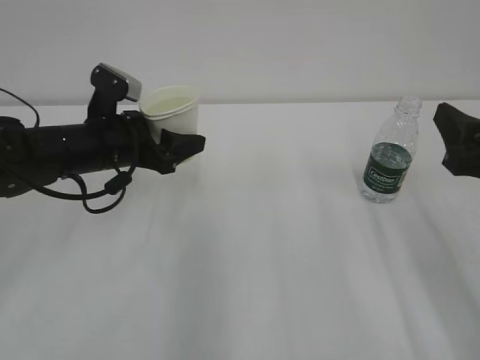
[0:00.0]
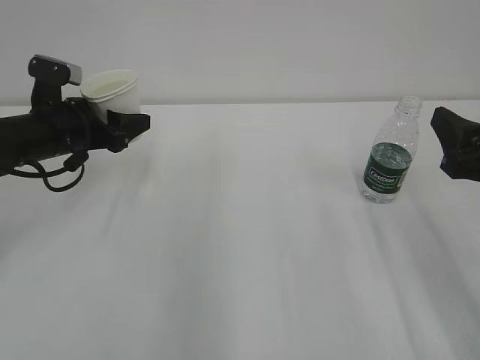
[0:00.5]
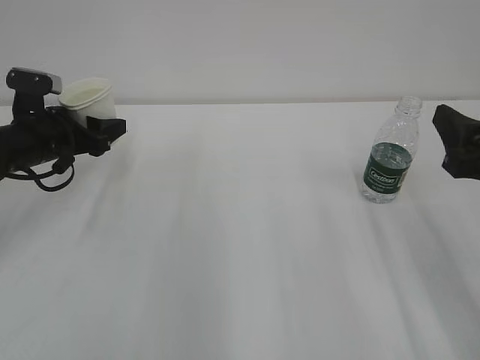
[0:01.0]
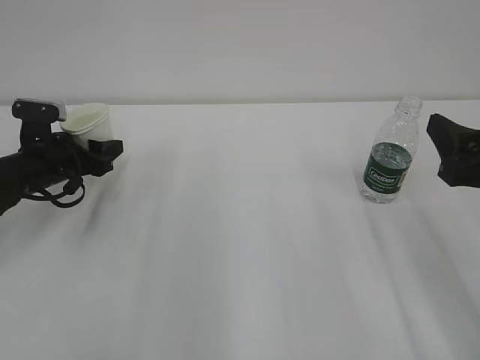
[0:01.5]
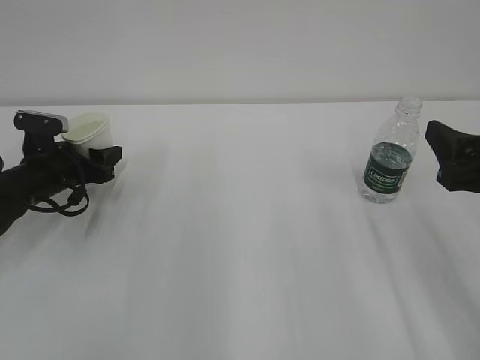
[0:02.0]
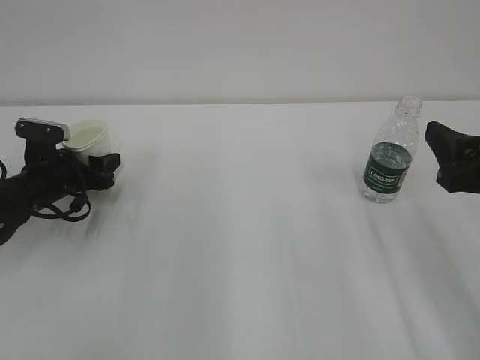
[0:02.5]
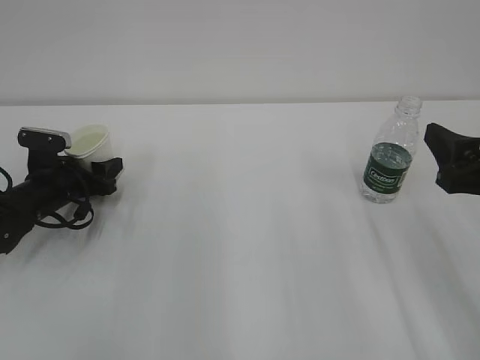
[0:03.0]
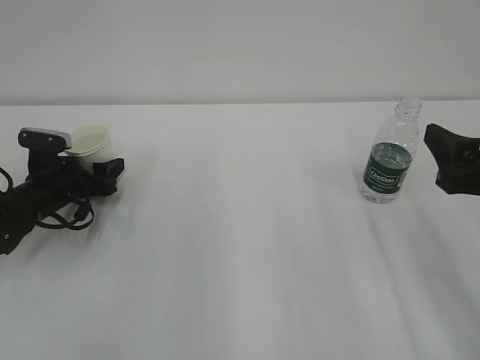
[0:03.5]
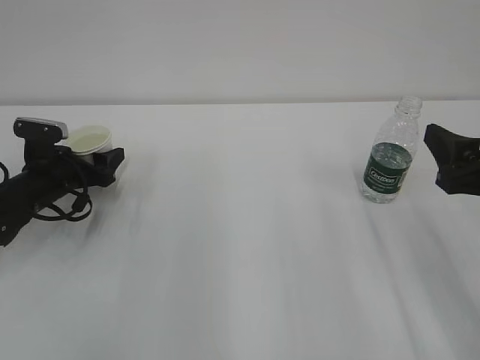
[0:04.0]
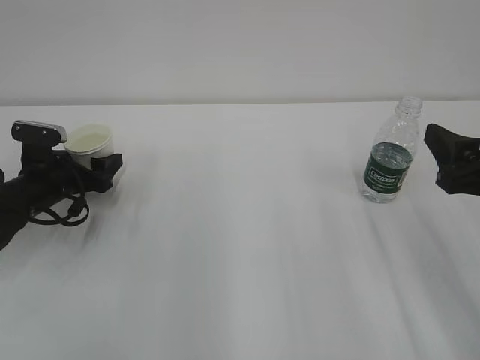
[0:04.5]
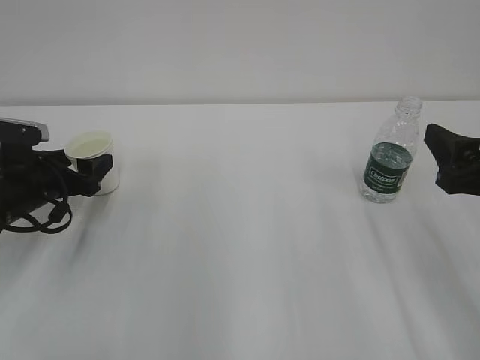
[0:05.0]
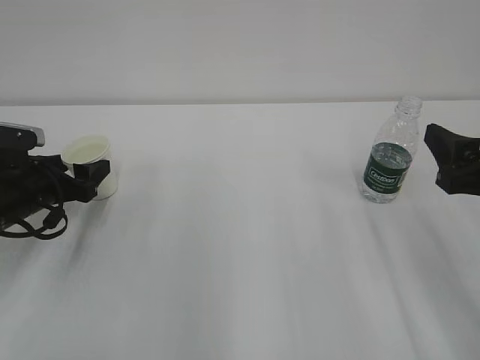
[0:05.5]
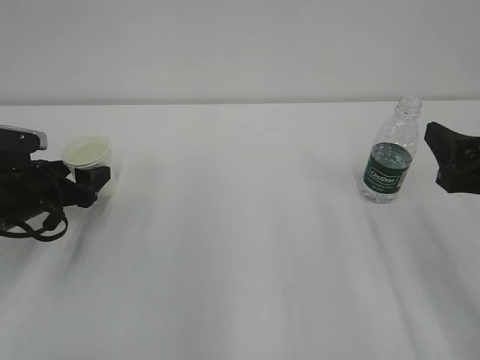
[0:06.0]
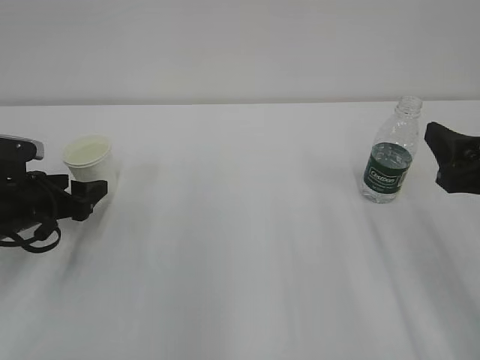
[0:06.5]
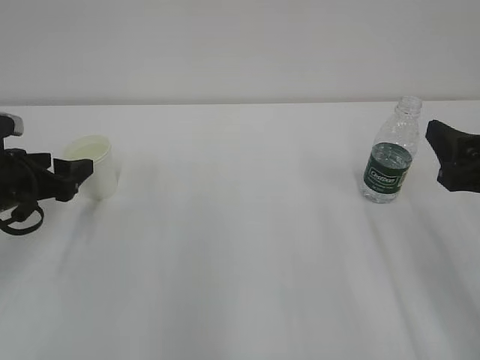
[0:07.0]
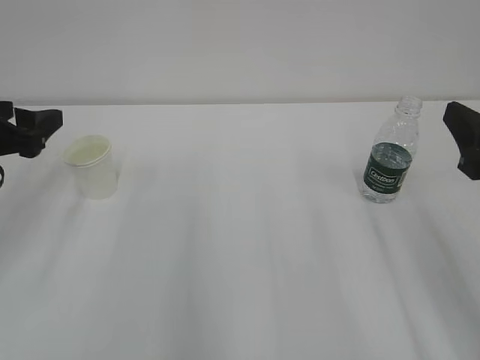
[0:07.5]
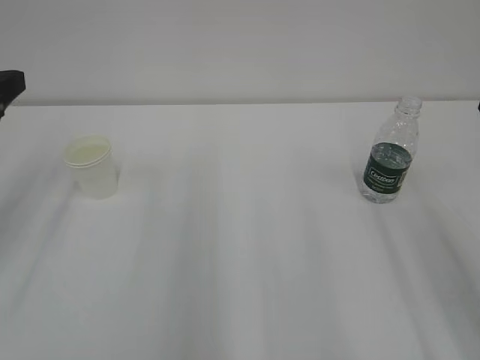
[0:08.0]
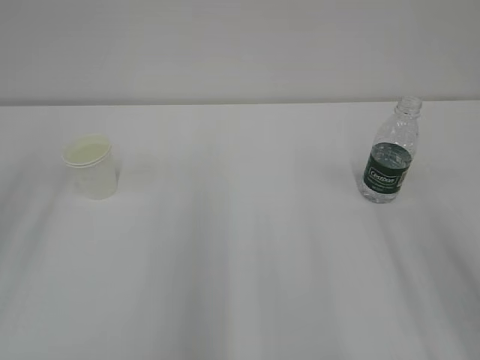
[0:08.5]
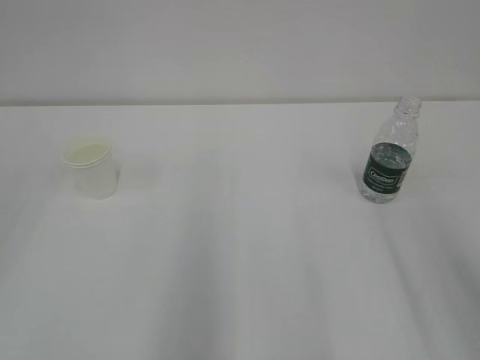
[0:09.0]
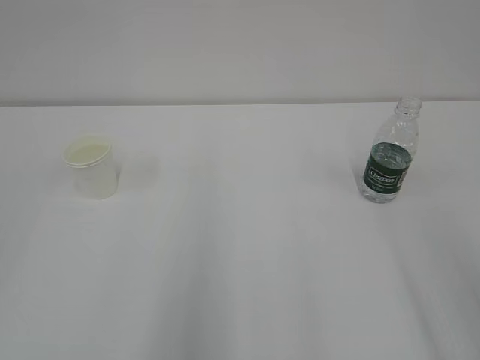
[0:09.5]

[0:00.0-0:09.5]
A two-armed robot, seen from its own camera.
0:00.0 to 0:02.0: The left gripper moves to the left and downward, roughly 15 cm.
0:02.0 to 0:04.0: The left gripper opens up.
0:04.0 to 0:05.5: The left gripper shifts approximately 5 cm backward.
0:05.5 to 0:07.5: The left gripper goes some 10 cm upward.
0:07.5 to 0:09.5: The grippers both shift backward and upward by some 20 cm. The left gripper closes.

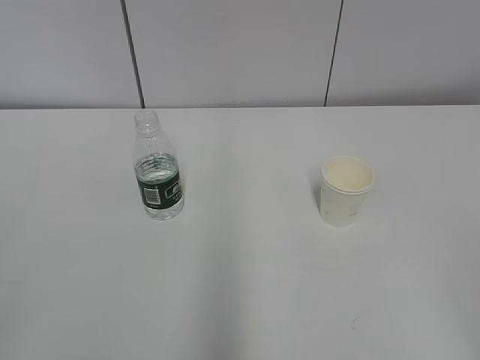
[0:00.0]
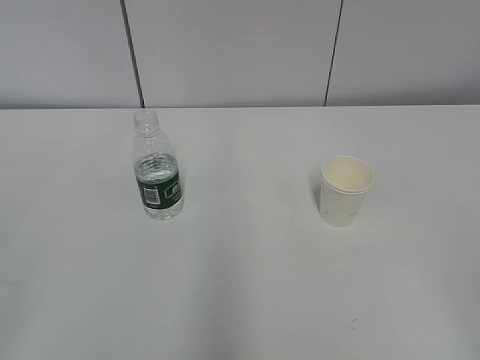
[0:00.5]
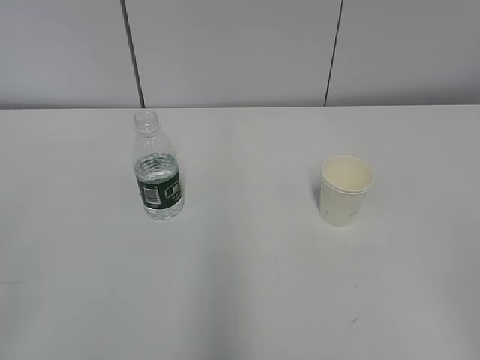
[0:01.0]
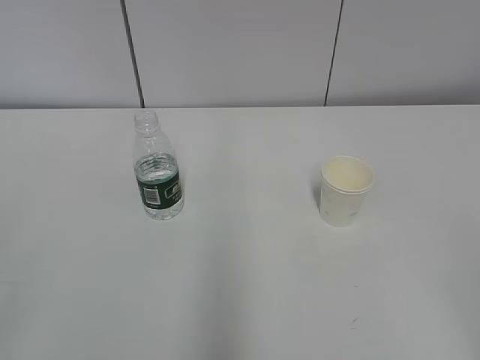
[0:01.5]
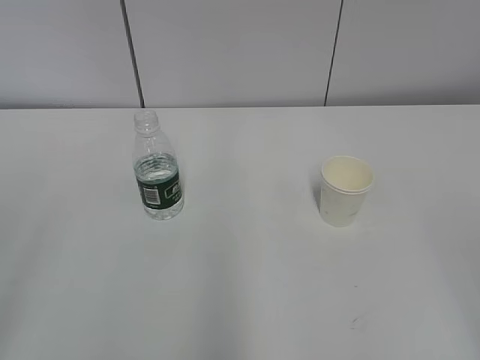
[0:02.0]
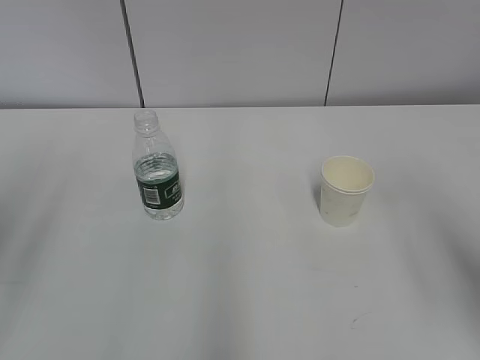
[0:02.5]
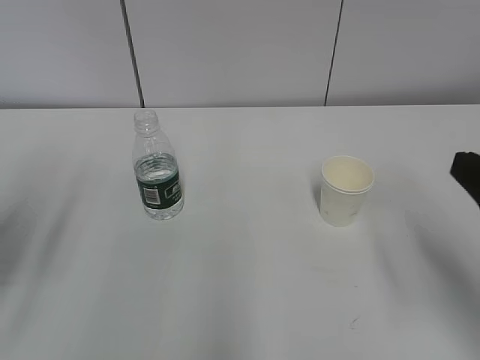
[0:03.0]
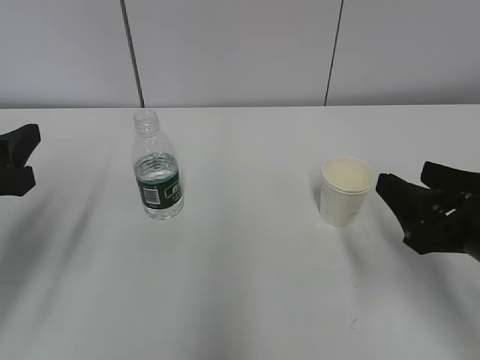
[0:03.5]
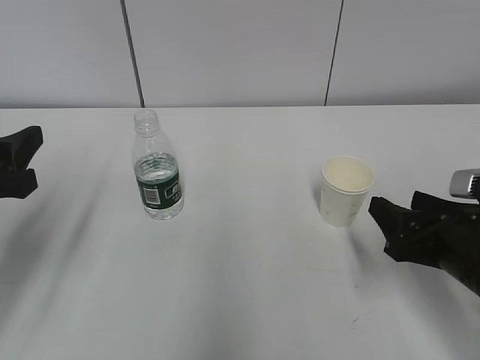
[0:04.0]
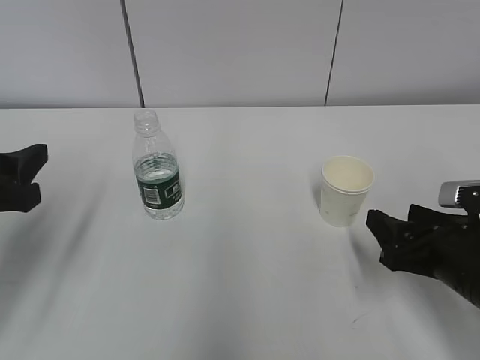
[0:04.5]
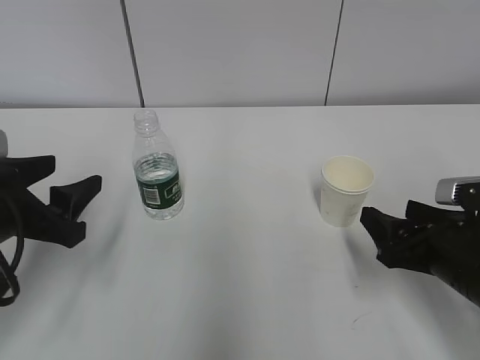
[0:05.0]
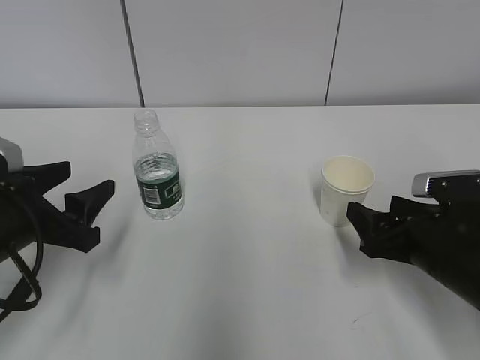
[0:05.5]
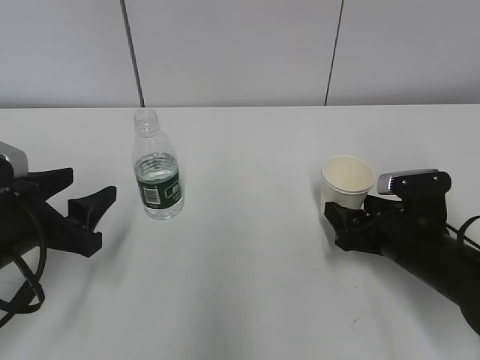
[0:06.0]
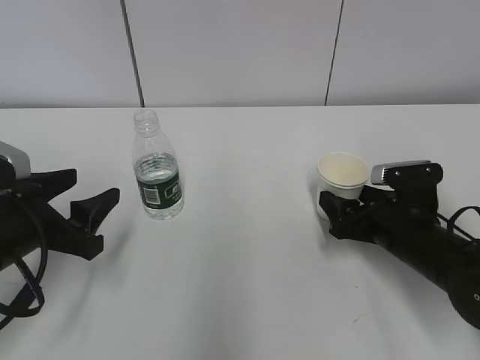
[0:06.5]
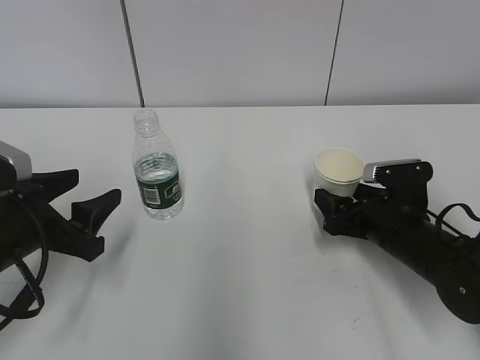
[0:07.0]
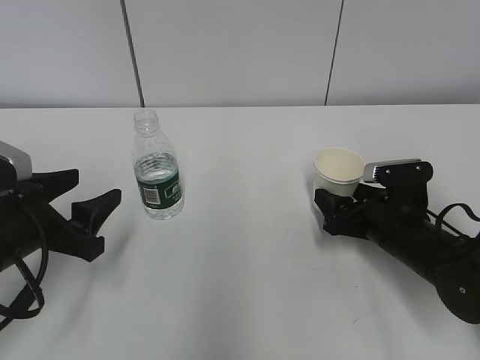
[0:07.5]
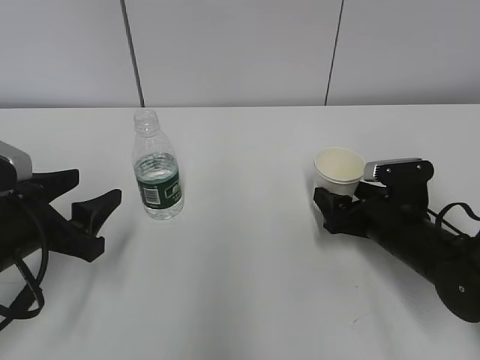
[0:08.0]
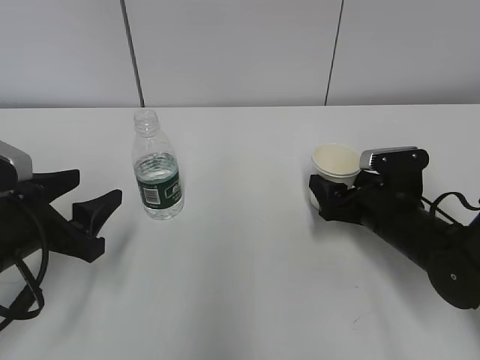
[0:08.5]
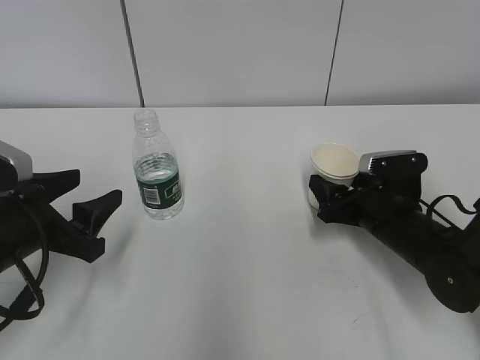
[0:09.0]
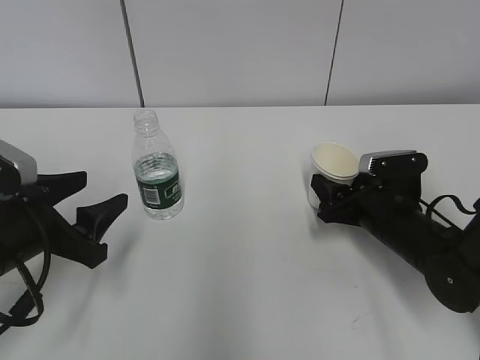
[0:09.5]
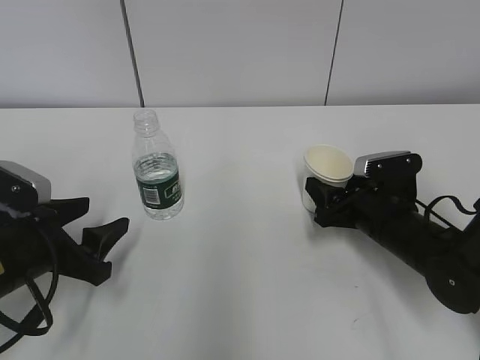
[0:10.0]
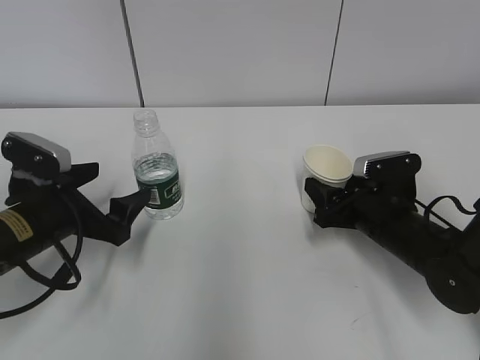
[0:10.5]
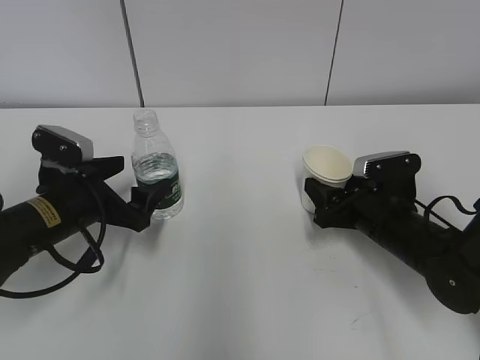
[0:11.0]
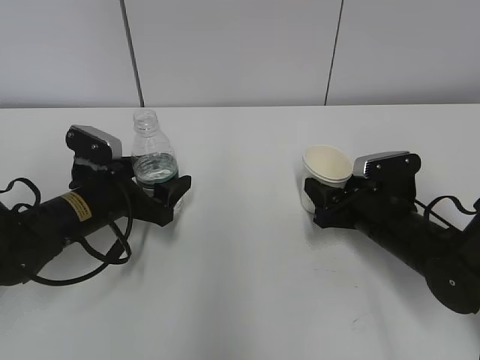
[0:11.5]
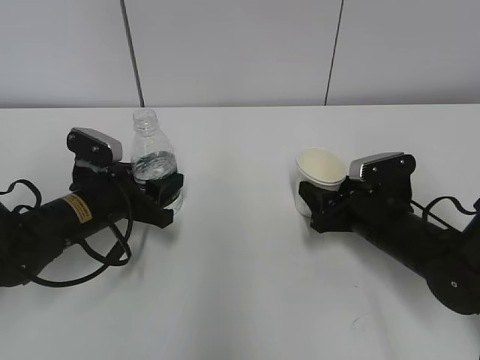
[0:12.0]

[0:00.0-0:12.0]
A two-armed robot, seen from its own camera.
Step, 0:00.0 to 0:10.0: Grab the water bottle with the left hand.
0:02.0 to 0:04.0: The two grippers go approximately 25 cm forward and downward.
0:04.0 to 0:06.0: The left gripper moves downward, about 10 cm. The right gripper travels forward and downward by about 10 cm, and opens its fingers.
0:06.0 to 0:08.0: There are only small adjustments of the grippers.
0:08.0 to 0:10.0: The right gripper closes.
0:10.0 to 0:12.0: The left gripper goes approximately 10 cm forward, and opens, then closes once more.

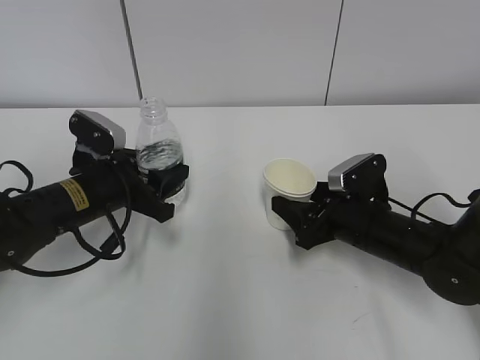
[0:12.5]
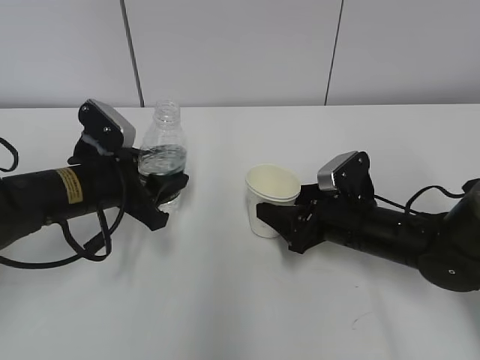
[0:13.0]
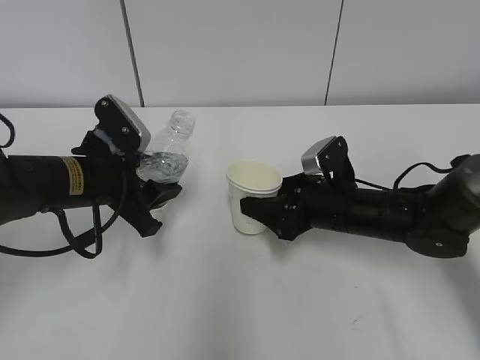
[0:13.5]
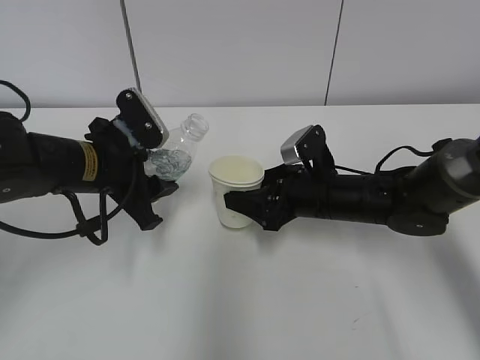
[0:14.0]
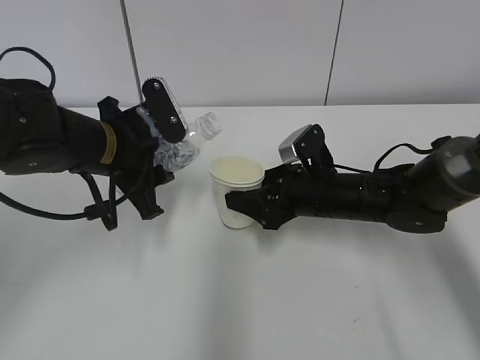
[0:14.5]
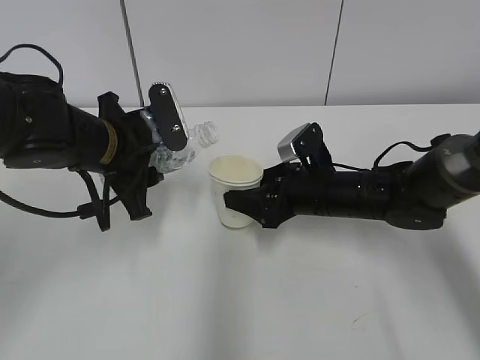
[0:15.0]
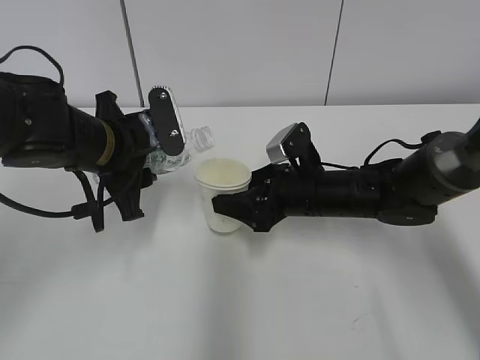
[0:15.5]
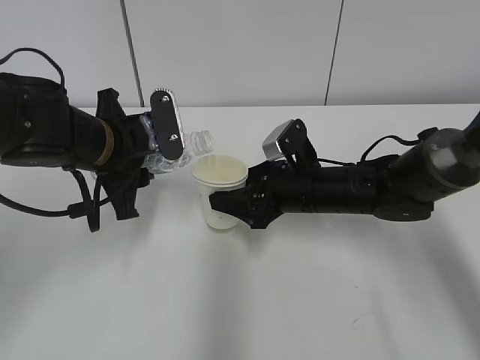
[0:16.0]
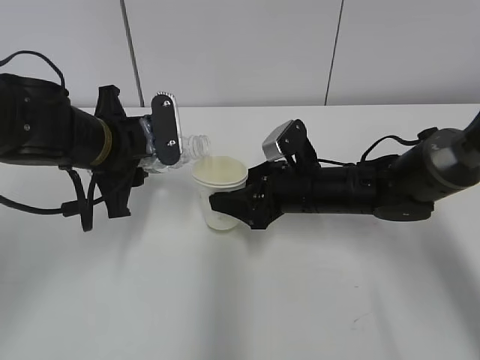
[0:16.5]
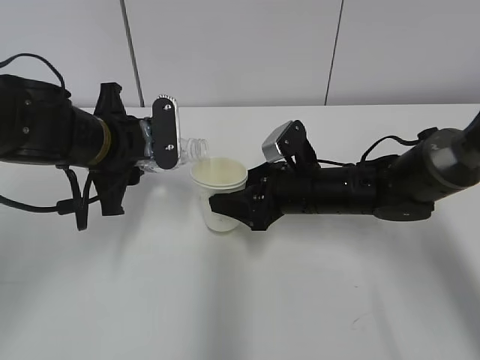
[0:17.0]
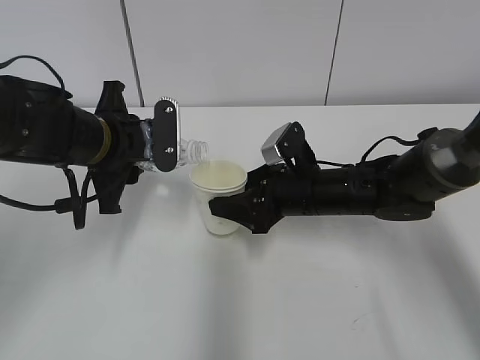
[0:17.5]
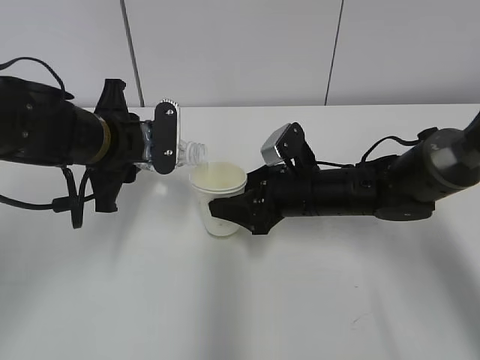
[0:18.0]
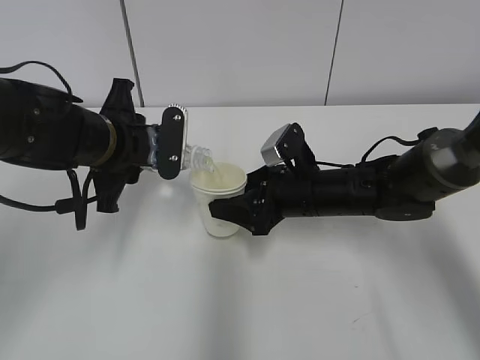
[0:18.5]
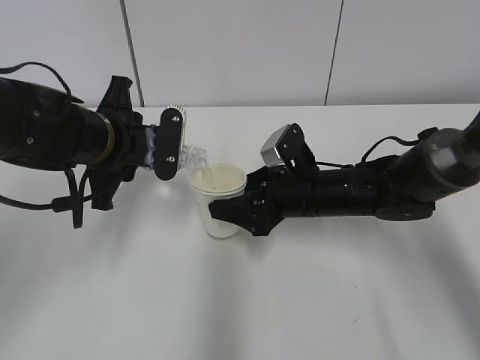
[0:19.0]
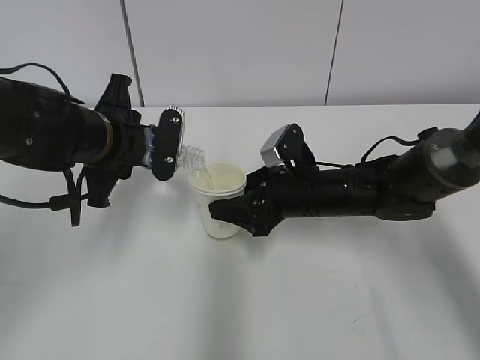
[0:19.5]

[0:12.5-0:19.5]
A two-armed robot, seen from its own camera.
Step, 0:12.5 to 0:15.0: Lift the paper cup with the right hand.
0:12.5 to 0:14.5: The left gripper travels upward by some 5 cm. Meanwhile the right gripper moves roughly 5 cm.
0:14.5 to 0:16.0: The grippers move only a little.
0:16.0 to 0:17.5: The grippers stay close to where they were, moving slightly.
0:17.5 to 0:19.5: The grippers move only a little.
